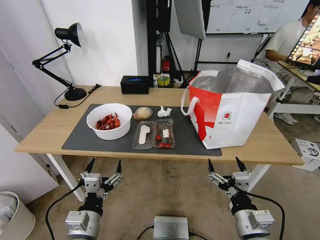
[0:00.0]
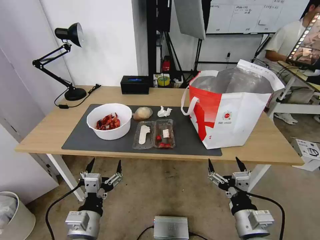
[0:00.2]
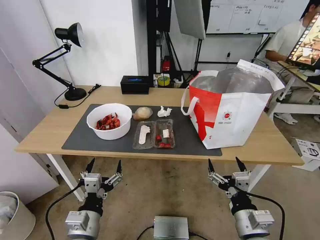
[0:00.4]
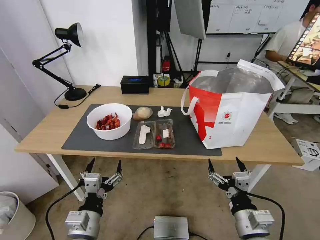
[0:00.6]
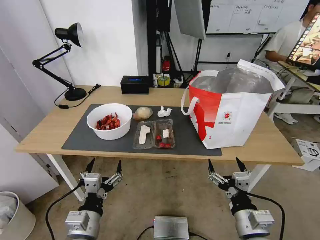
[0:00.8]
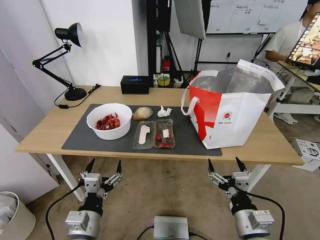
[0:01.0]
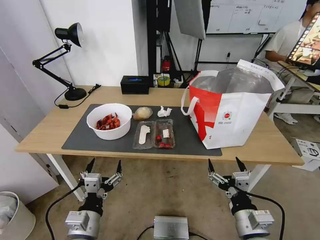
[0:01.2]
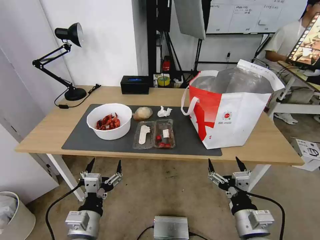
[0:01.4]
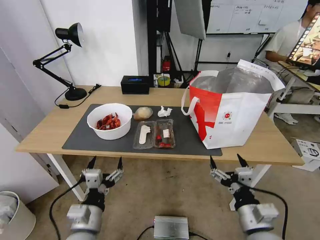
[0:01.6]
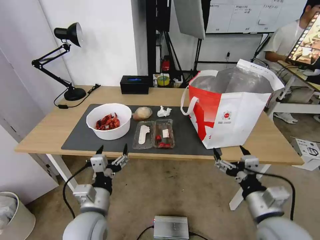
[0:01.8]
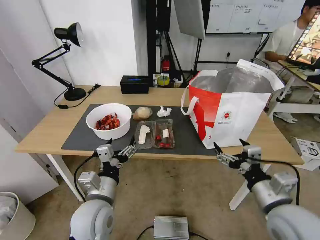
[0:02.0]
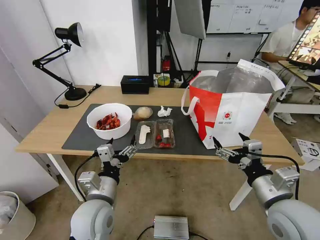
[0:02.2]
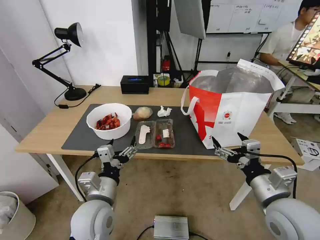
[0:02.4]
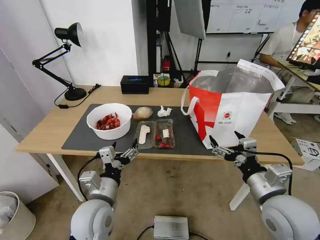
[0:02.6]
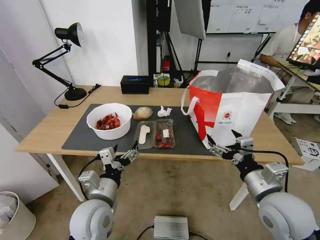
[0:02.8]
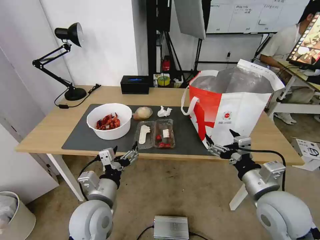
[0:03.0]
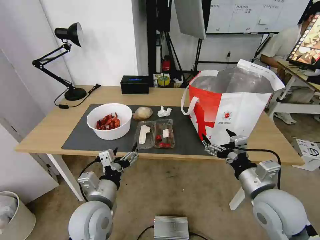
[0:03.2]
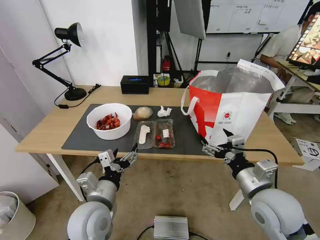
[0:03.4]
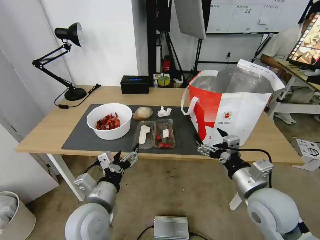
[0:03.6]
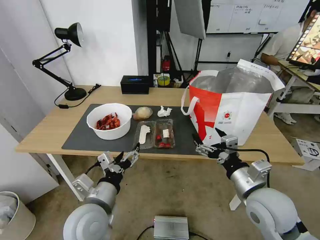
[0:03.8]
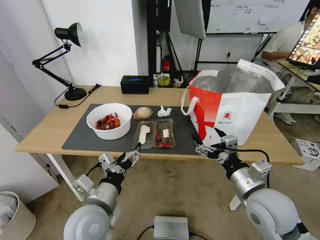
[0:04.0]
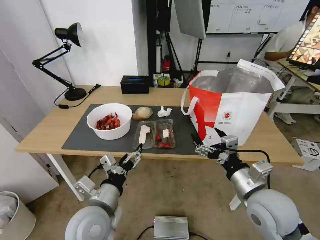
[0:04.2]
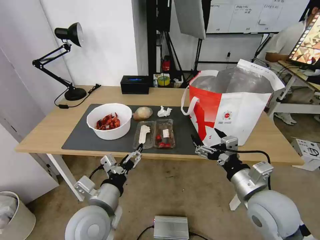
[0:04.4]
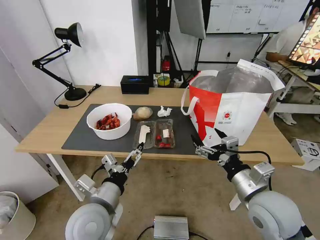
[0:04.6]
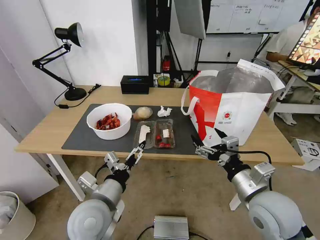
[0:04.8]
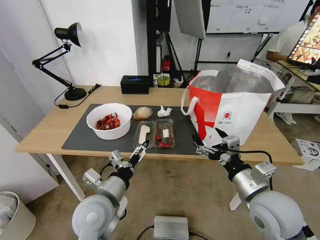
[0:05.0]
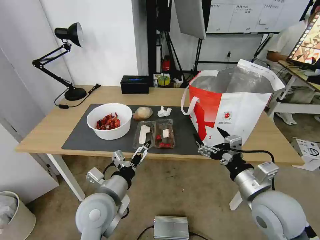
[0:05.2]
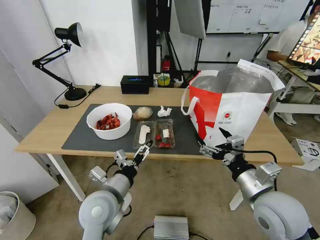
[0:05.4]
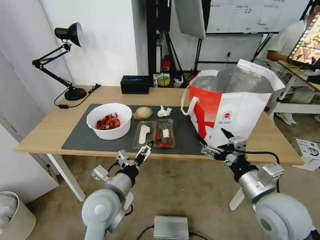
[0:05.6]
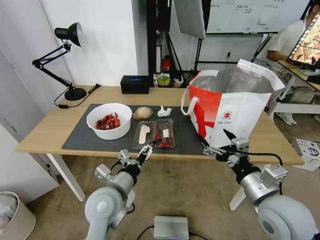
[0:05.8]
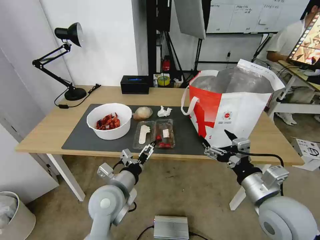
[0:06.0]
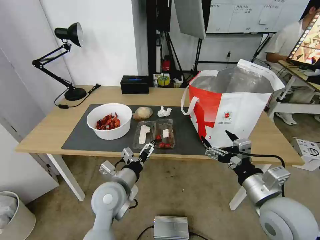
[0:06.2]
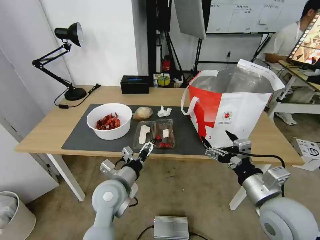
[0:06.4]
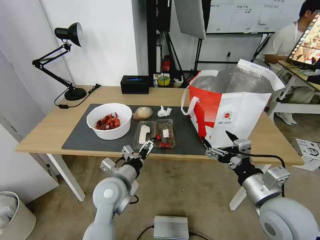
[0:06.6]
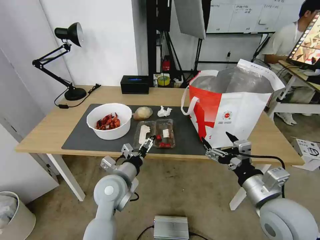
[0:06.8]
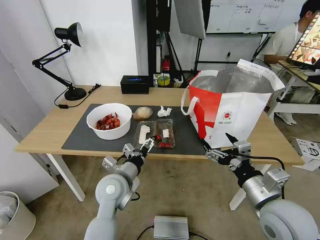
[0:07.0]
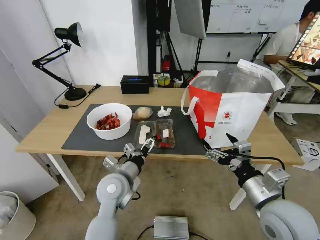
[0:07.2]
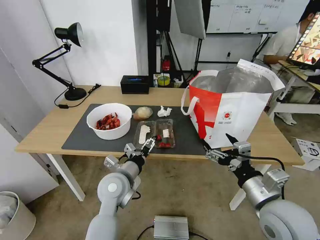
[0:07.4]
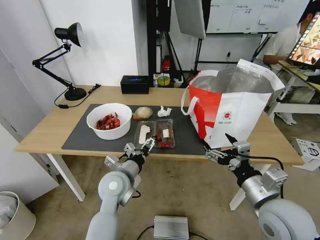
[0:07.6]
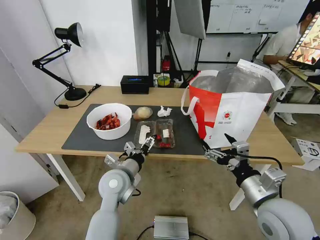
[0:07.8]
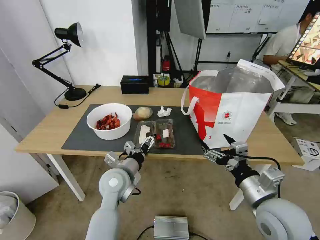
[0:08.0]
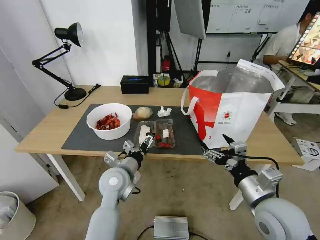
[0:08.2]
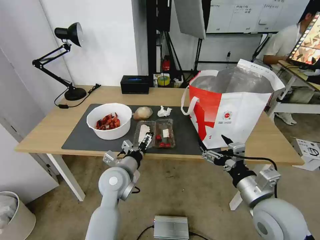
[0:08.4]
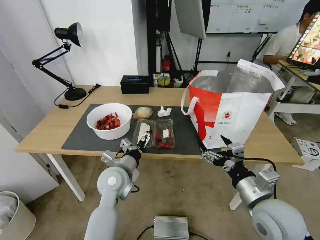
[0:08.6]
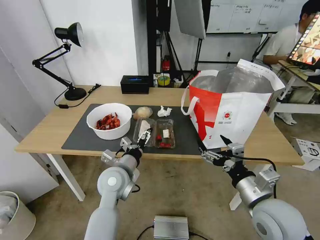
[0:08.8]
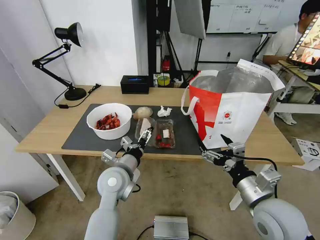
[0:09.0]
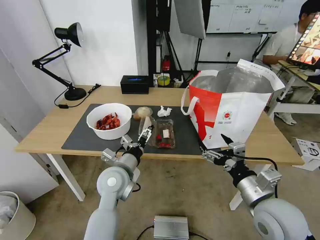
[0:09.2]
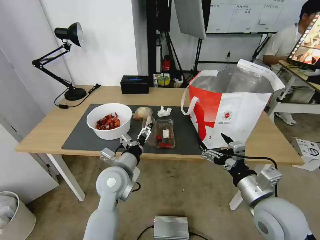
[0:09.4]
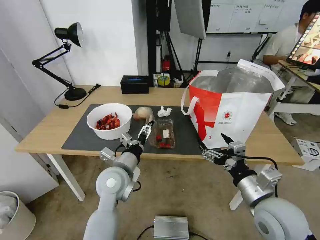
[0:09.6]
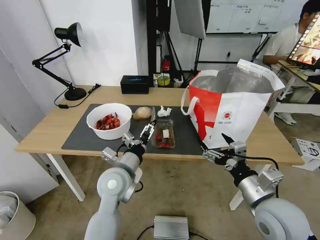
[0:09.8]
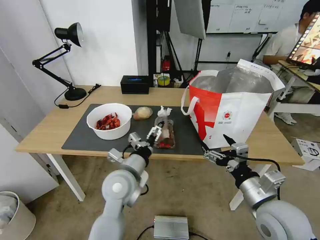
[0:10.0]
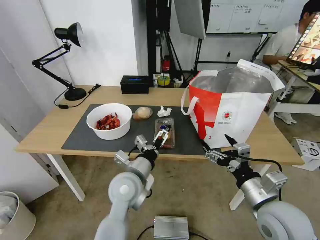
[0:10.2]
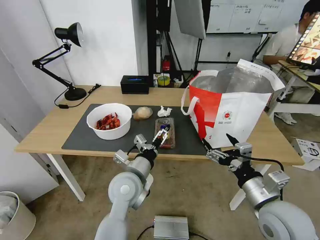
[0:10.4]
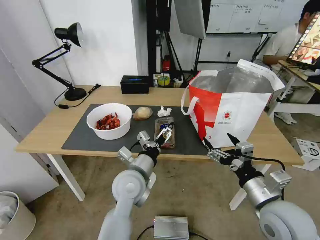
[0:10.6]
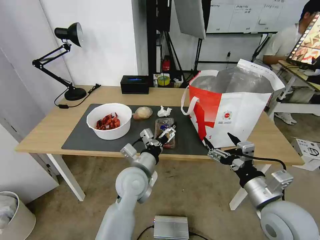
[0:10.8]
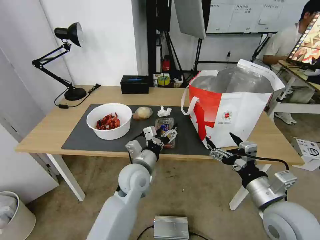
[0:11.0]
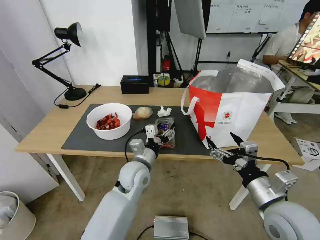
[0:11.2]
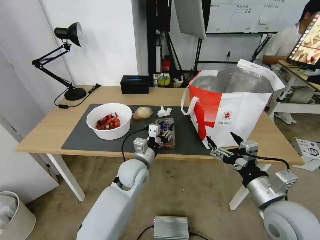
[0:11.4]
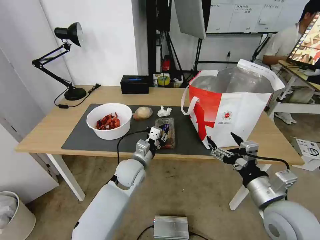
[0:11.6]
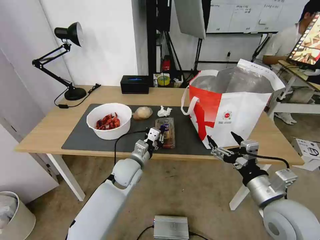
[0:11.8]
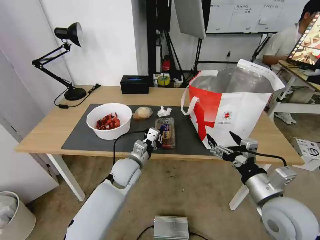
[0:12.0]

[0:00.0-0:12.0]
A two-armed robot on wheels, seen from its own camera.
Task of the whole recording: Pick up the trash from the table and place it into the takeout bag.
0:01.6 to 0:03.0: The right gripper is displaced forward and upward by roughly 10 cm. Meanwhile the left gripper is displaced forward by about 5 cm.
0:04.4 to 0:06.0: The left gripper shifts about 5 cm forward.
0:06.0 to 0:07.6: The left gripper ends up roughly 5 cm from where it was.
0:07.6 to 0:10.4: The grippers make only small movements.
0:10.4 to 0:12.0: The left gripper goes about 10 cm forward and downward, and closes up.

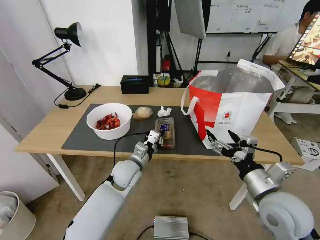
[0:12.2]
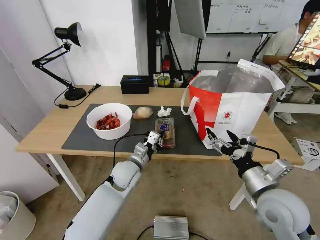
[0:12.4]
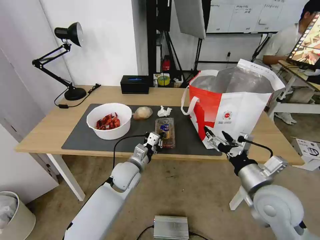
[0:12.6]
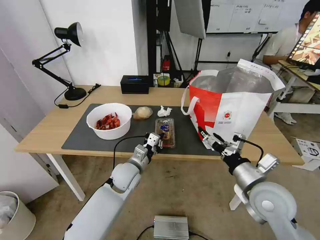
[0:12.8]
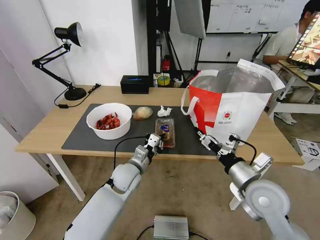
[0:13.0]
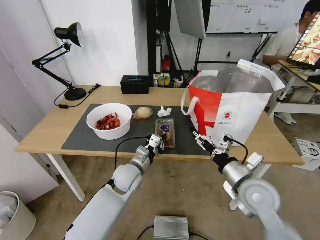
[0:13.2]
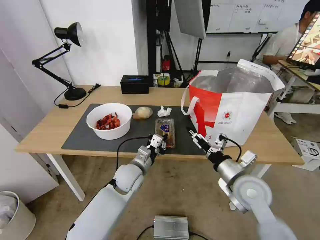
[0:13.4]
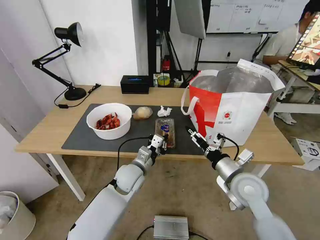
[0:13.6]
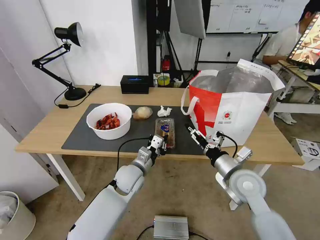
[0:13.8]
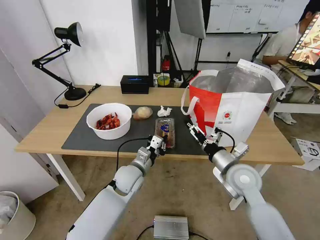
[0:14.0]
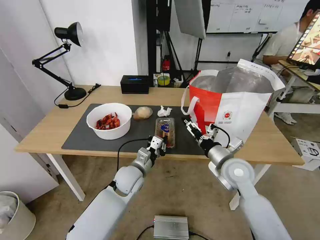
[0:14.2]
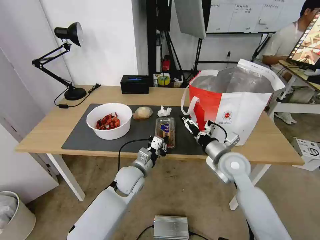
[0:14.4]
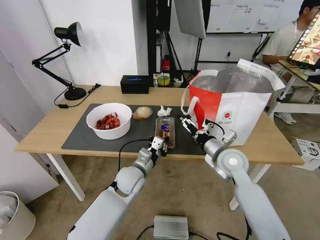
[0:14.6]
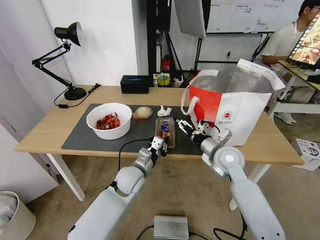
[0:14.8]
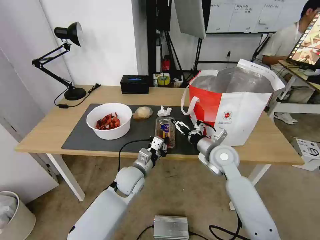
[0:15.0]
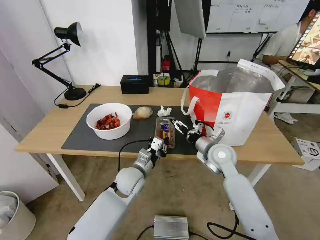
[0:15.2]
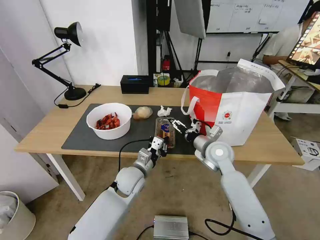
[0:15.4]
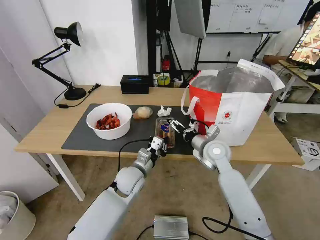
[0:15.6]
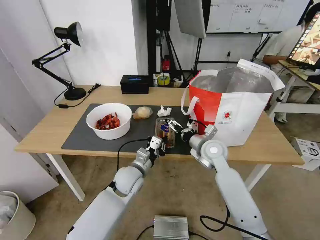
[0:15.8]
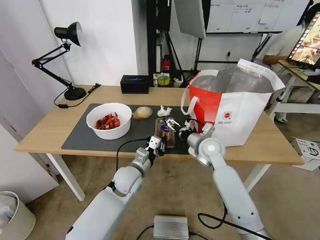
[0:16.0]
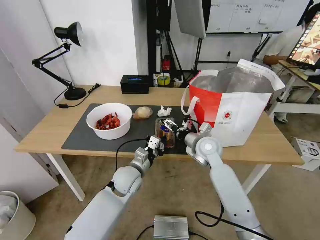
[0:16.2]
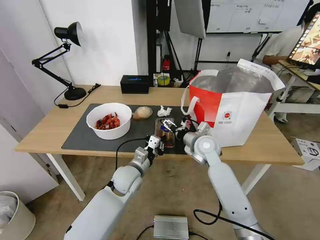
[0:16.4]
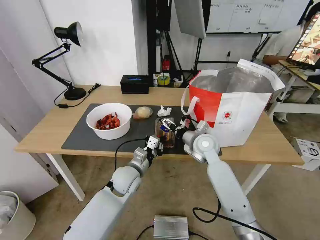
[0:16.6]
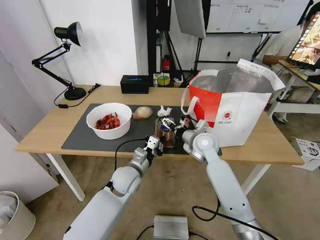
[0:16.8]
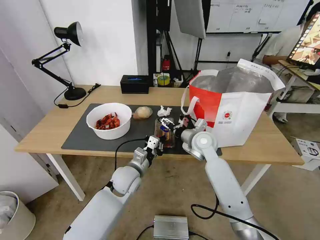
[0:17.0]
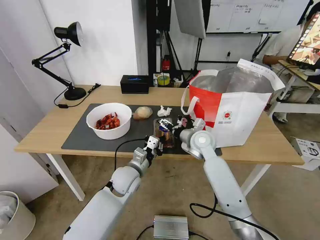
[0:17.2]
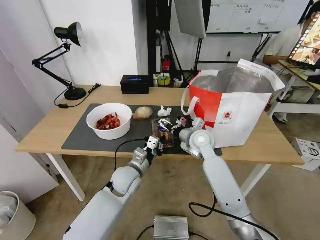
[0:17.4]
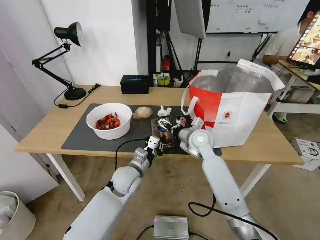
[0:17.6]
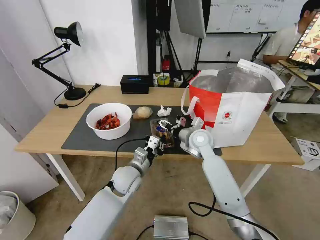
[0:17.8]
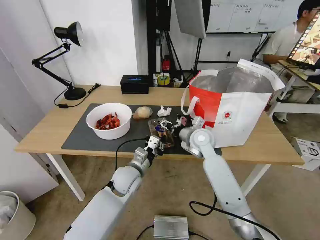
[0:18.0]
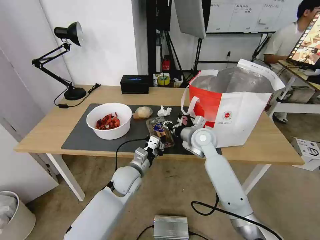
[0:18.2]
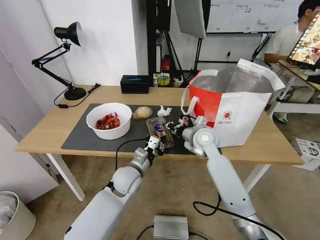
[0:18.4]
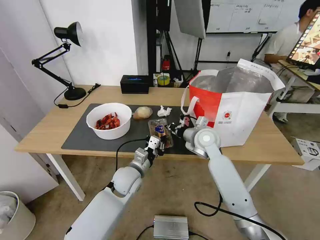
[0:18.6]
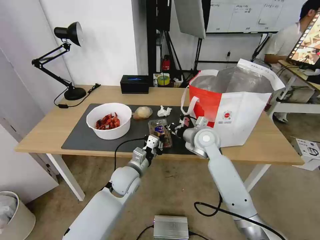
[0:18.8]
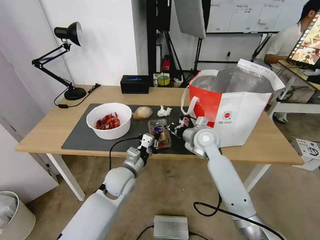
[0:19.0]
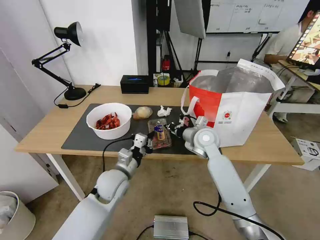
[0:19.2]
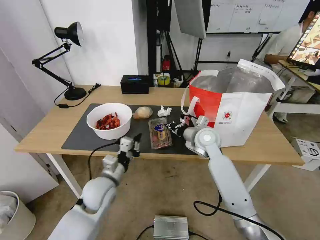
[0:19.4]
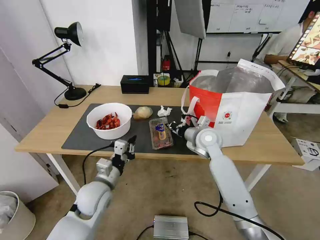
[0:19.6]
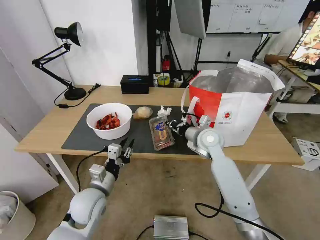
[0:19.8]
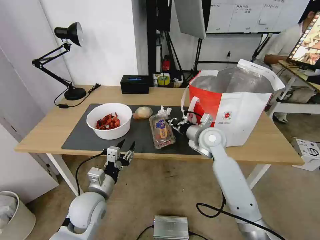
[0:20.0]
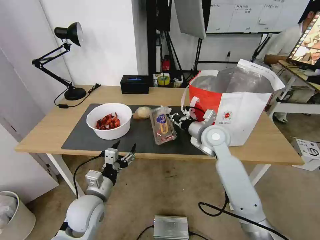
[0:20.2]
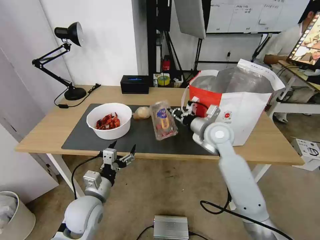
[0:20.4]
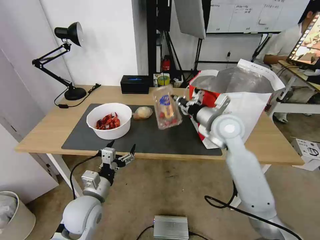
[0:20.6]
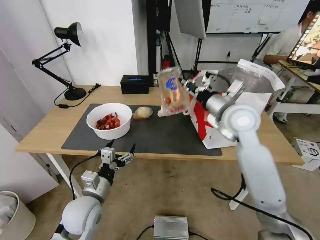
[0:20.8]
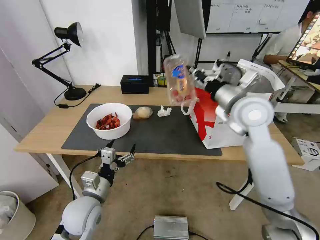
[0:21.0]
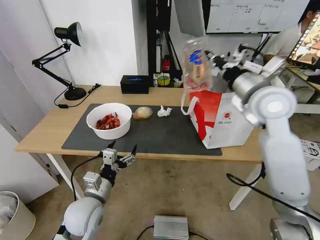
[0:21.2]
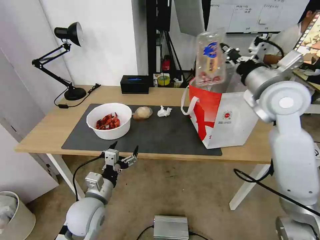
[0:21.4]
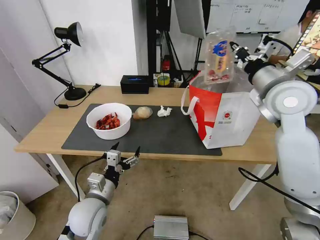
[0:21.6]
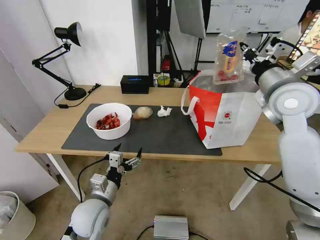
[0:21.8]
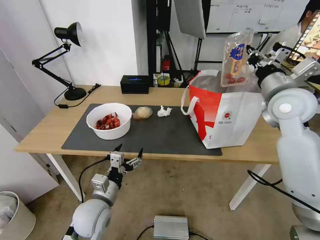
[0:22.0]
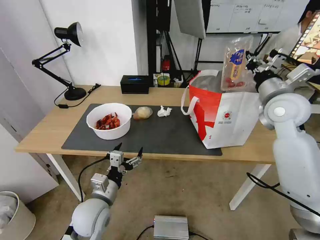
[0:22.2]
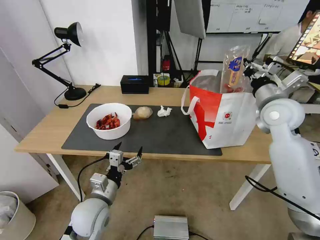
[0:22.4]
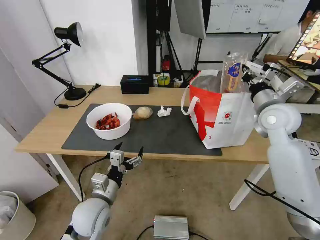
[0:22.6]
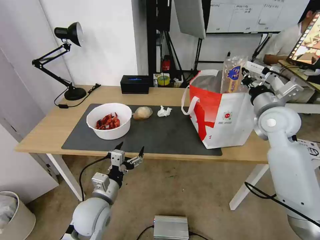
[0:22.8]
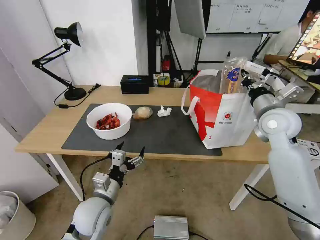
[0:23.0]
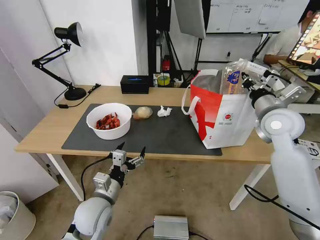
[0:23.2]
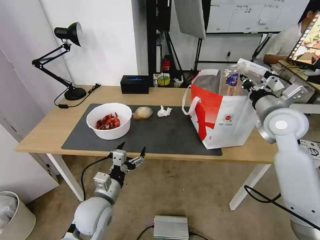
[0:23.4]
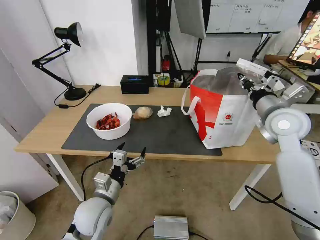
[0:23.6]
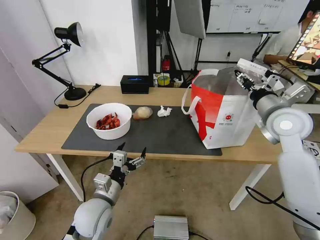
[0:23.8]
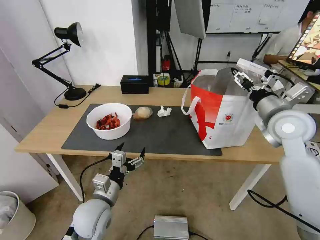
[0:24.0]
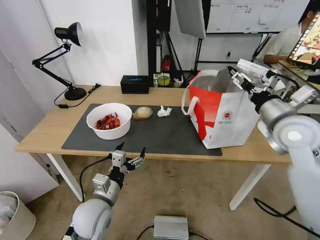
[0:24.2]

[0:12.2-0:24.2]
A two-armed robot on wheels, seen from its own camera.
Task of the whole recording: Pick up the trash from the table and place it into the takeout bag.
0:12.2 to 0:13.8: The right gripper moves forward, approximately 10 cm.
0:13.8 to 0:15.2: The right gripper heads forward, covering roughly 10 cm.
0:15.2 to 0:16.6: The right gripper moves approximately 5 cm.
0:16.6 to 0:18.2: The right gripper closes up.
0:18.2 to 0:19.8: The left gripper moves to the left and backward, about 15 cm.
0:19.8 to 0:21.2: The right gripper shifts some 20 cm upward and to the right; the left gripper opens its fingers.
0:21.2 to 0:22.6: The right gripper shifts approximately 10 cm to the right and downward.
0:22.6 to 0:24.2: The right gripper moves backward, approximately 10 cm, and opens up.
